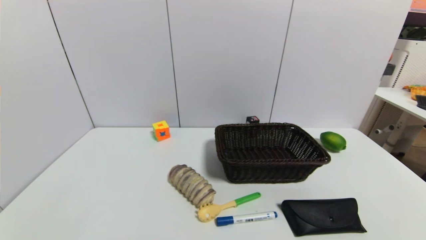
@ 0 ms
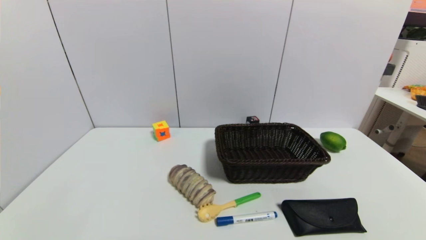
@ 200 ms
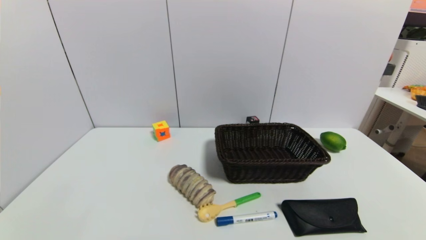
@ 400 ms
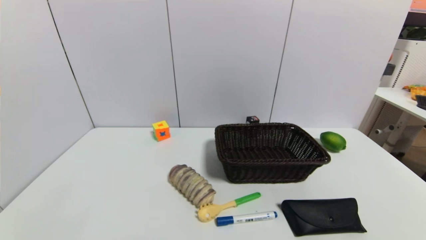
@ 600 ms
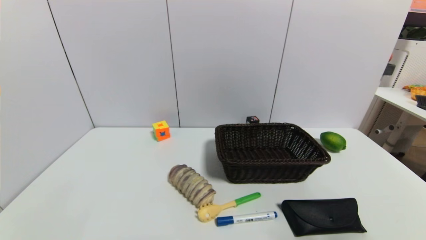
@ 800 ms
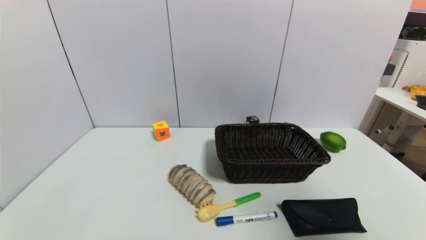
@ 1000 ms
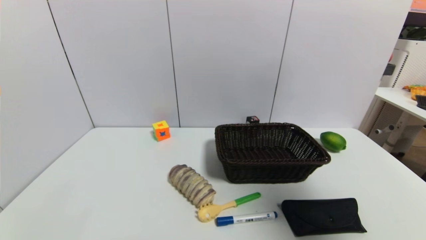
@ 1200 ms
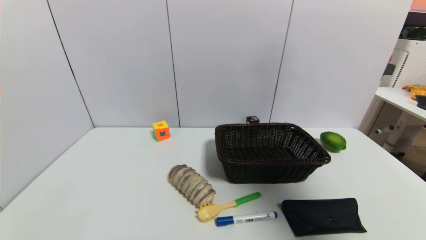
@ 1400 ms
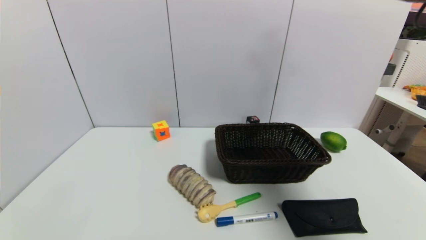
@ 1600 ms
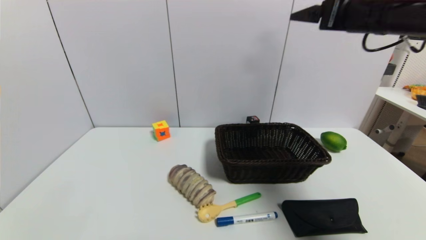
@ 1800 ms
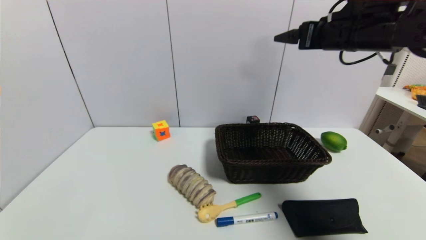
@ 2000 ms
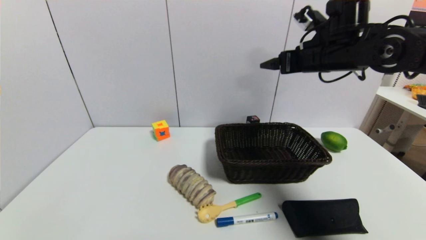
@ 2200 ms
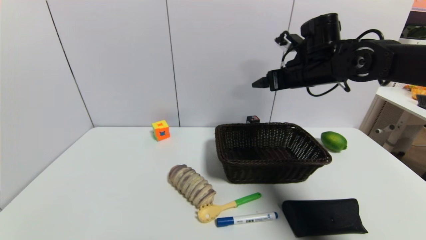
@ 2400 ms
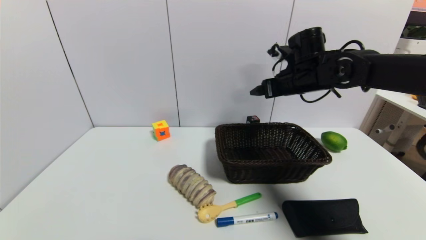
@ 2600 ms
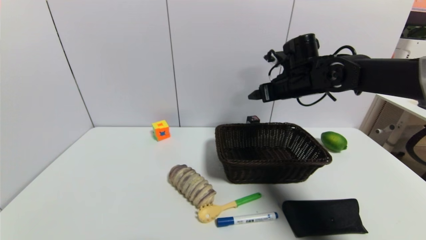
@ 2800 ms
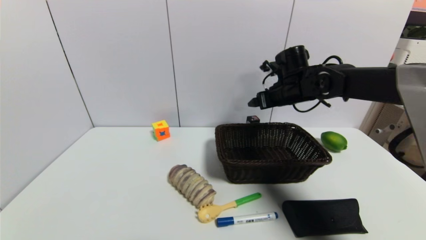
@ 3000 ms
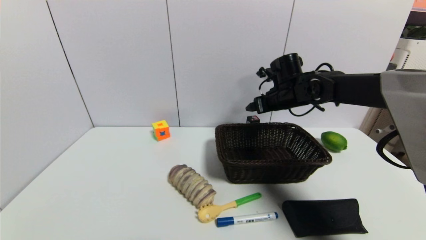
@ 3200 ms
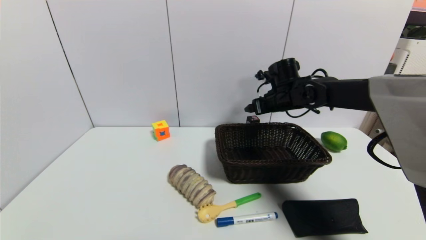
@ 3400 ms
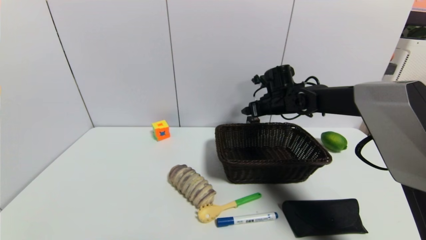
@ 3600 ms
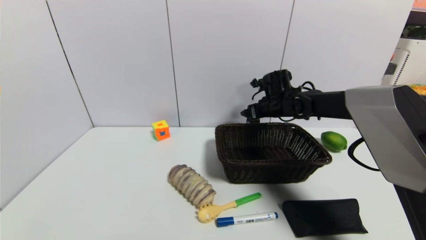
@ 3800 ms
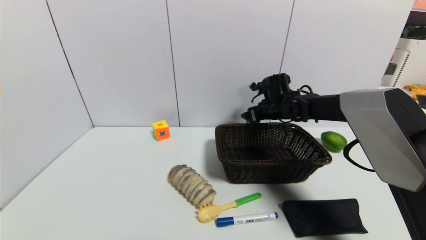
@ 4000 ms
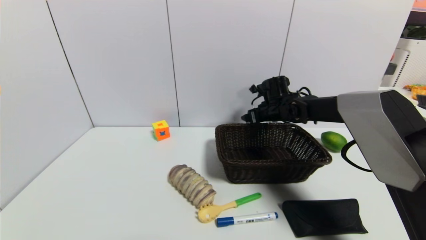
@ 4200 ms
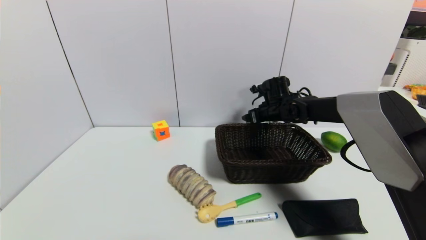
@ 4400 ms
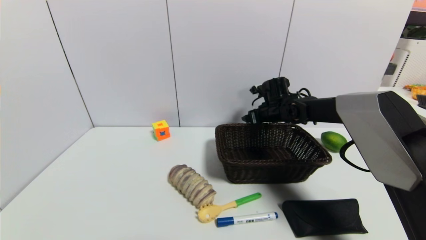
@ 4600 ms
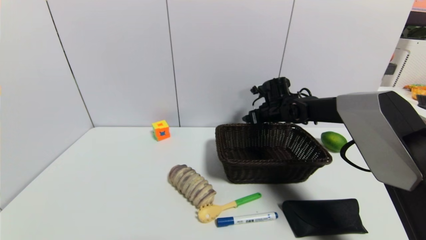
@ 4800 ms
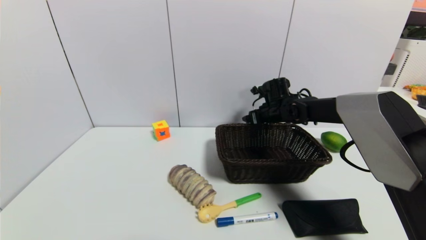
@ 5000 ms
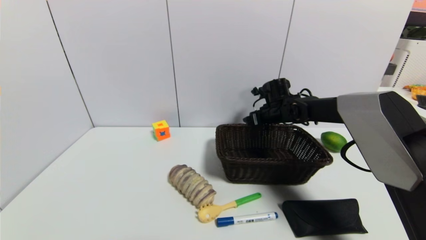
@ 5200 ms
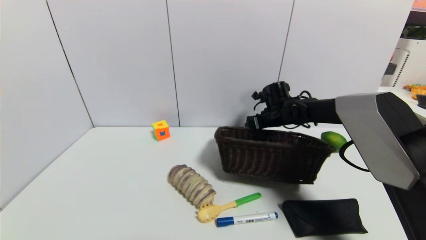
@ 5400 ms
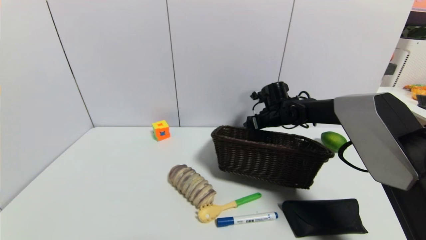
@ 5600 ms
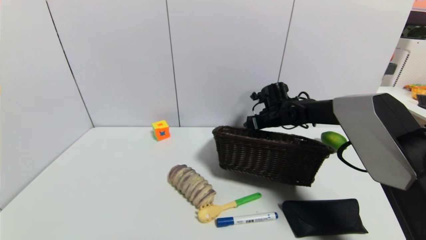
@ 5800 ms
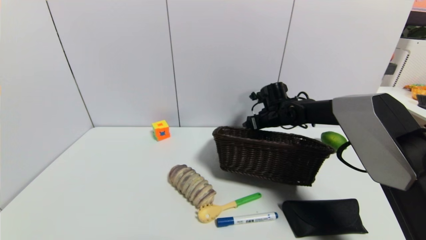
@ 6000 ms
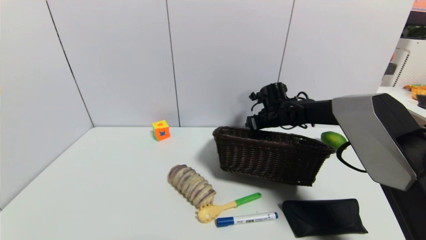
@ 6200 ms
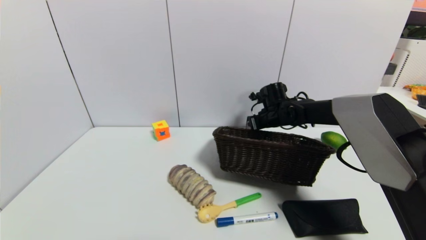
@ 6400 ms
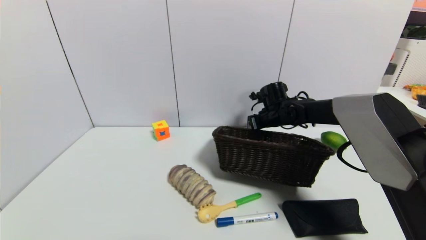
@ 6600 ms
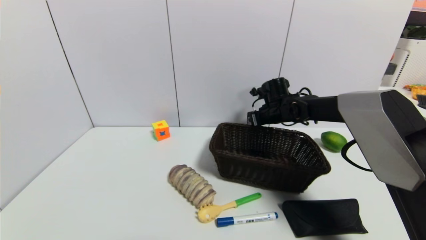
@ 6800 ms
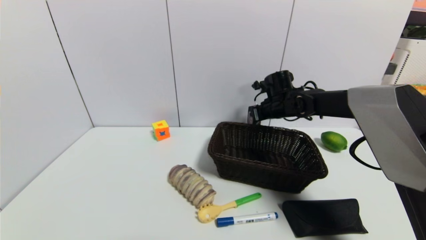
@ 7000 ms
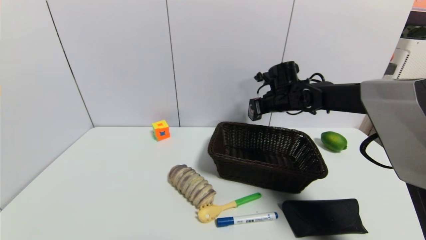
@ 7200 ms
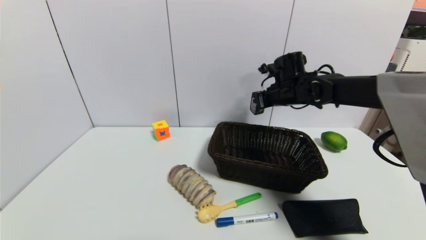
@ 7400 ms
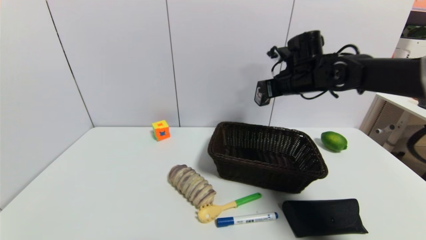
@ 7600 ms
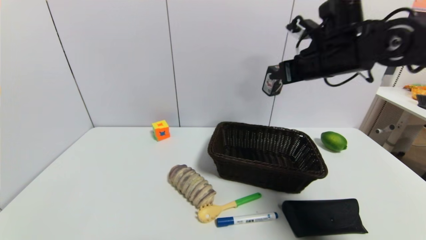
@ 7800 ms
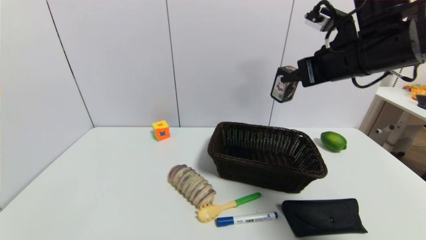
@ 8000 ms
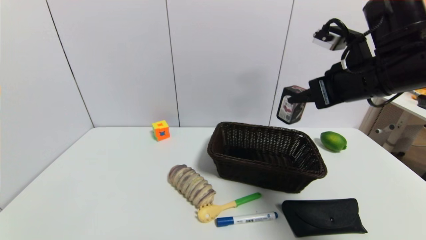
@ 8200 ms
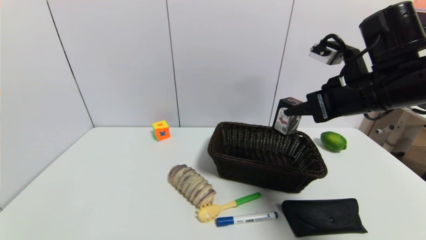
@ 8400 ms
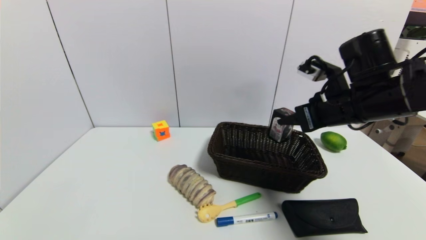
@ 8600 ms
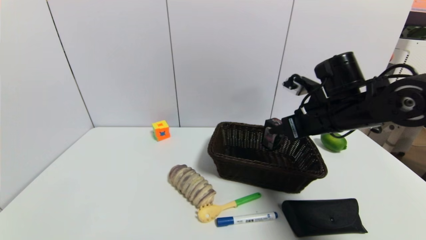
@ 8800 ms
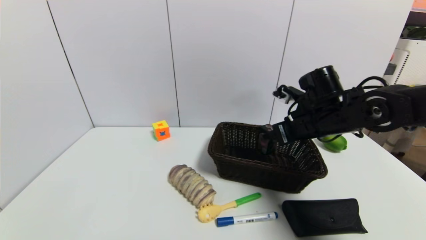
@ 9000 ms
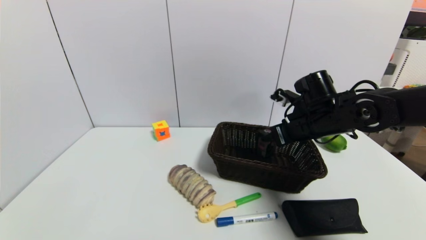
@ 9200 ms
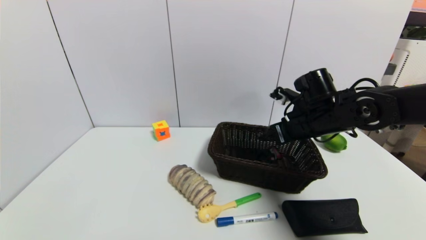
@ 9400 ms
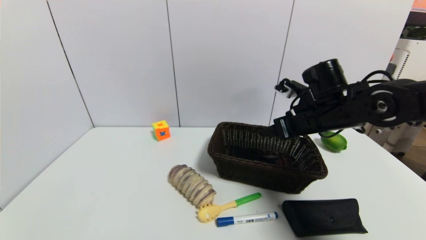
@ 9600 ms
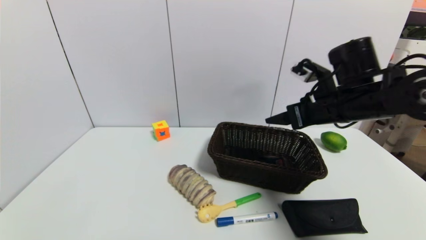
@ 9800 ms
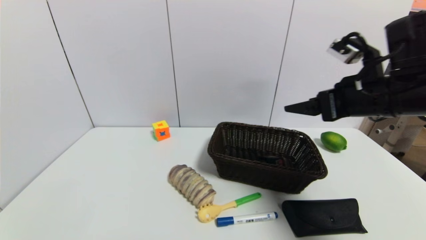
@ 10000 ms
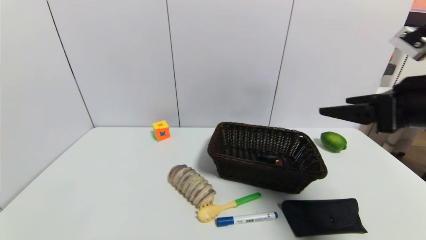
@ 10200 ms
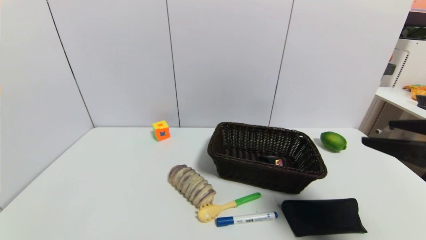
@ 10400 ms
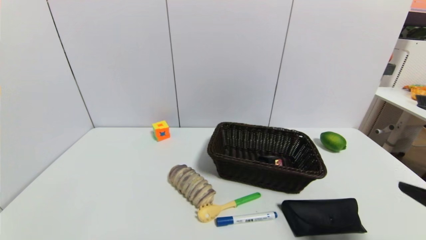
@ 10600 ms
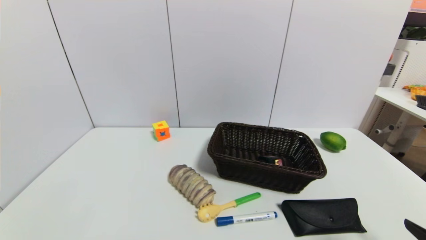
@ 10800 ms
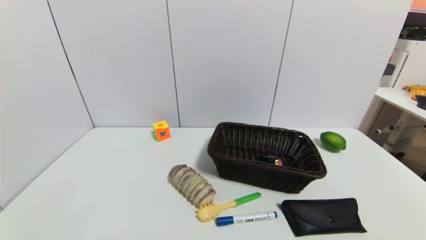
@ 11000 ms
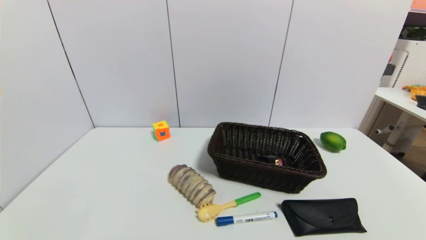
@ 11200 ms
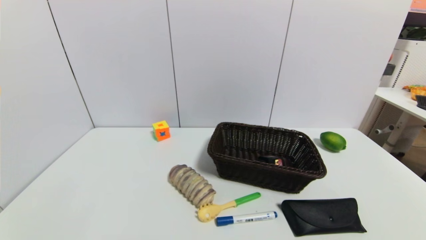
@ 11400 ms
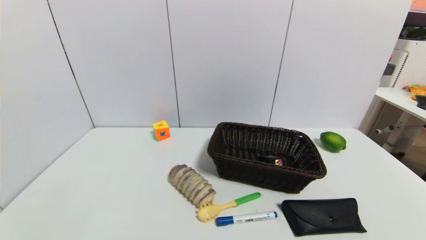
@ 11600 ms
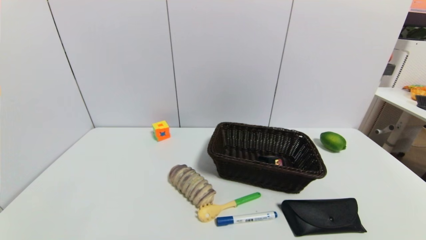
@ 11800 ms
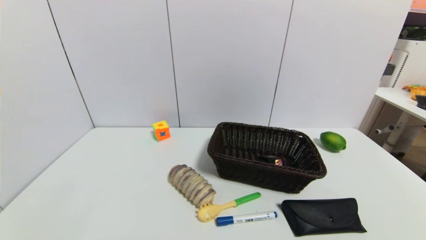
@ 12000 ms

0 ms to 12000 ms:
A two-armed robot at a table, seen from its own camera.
Task of the whole recording: use a gripper to pick the target object and place on the brown basket.
Step, 0 ms to 6600 ms: Grasp the square chewing gum with the right gripper.
Step, 6800 ms to 9800 ms: Place the square chewing gum into the basket with the right gripper.
0 ms to 1600 ms: The right gripper heads upward and forward, covering roughly 40 cm.
1600 ms to 3000 ms: The right gripper moves downward, forward and to the left, about 30 cm.
3000 ms to 4400 ms: The right gripper shifts roughly 10 cm downward and forward.
4400 ms to 6000 ms: The grippers stay close to where they were, moving slightly.
6000 ms to 7600 ms: The right gripper shifts some 15 cm upward and backward, and closes its fingers.
7600 ms to 9000 ms: The right gripper goes approximately 10 cm backward and downward.
9000 ms to 10400 ms: The right gripper heads backward and to the right, covering some 25 cm, and opens its fingers.
10400 ms to 12000 ms: The right gripper shifts roughly 25 cm downward and backward.

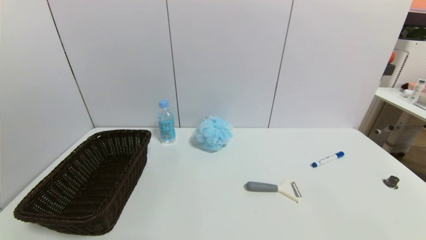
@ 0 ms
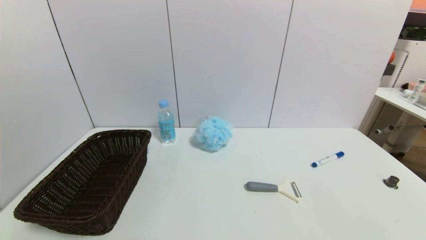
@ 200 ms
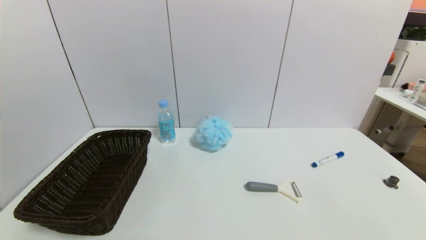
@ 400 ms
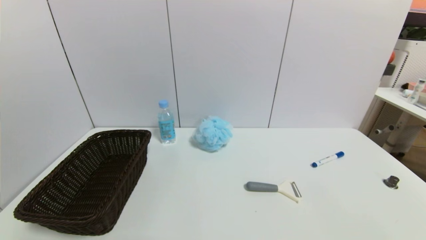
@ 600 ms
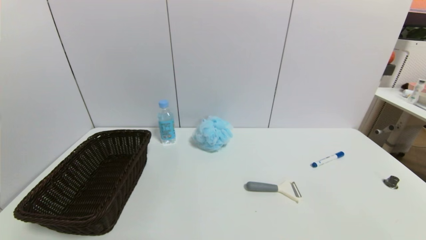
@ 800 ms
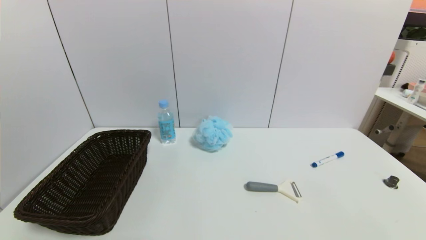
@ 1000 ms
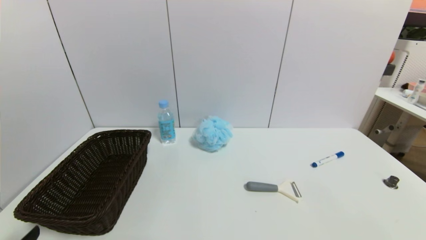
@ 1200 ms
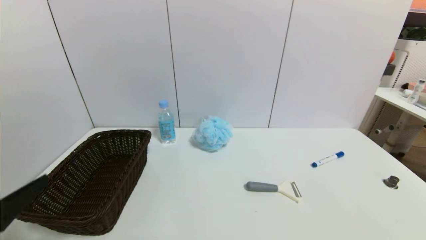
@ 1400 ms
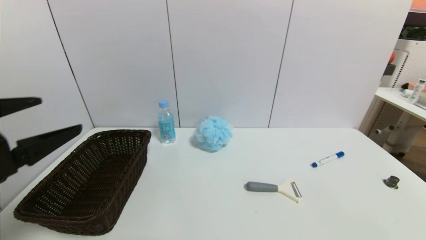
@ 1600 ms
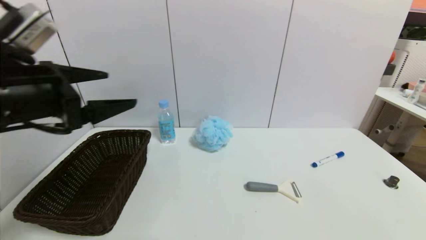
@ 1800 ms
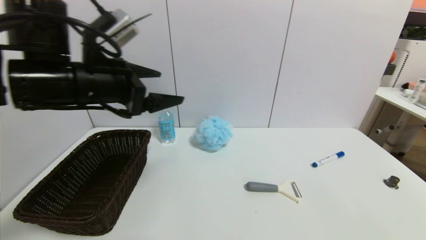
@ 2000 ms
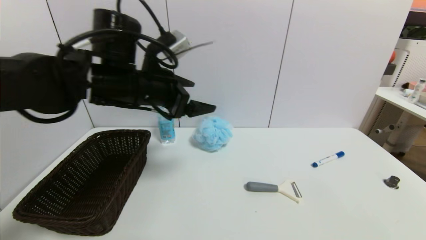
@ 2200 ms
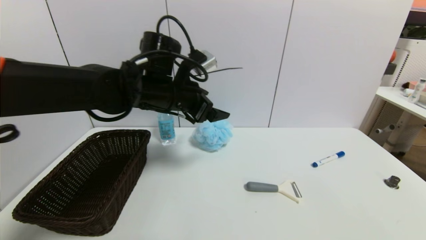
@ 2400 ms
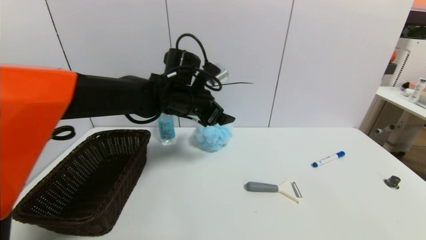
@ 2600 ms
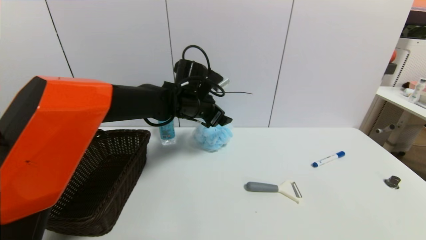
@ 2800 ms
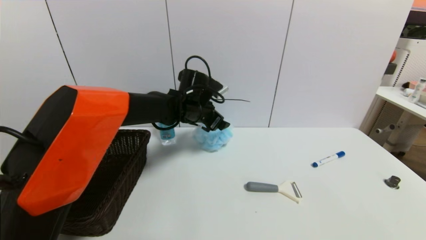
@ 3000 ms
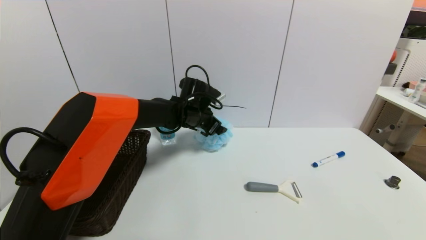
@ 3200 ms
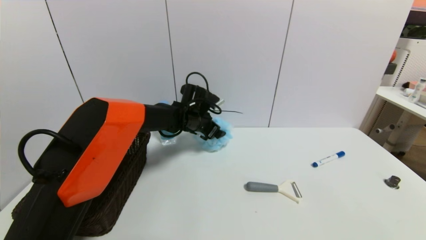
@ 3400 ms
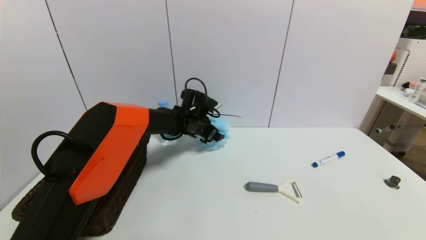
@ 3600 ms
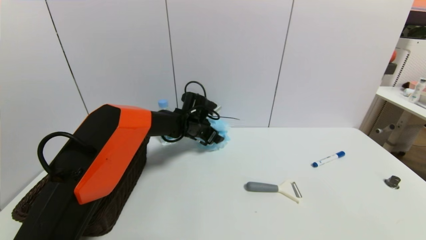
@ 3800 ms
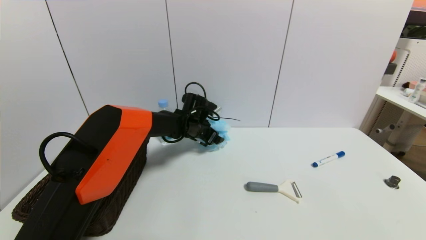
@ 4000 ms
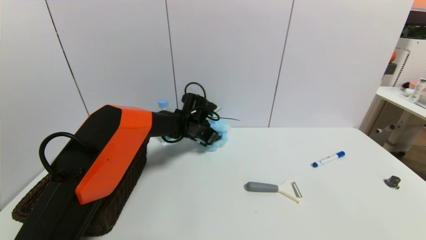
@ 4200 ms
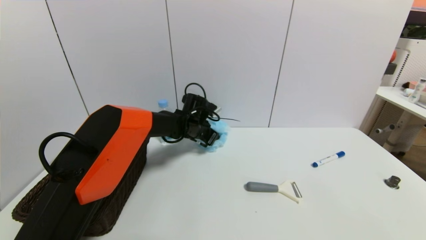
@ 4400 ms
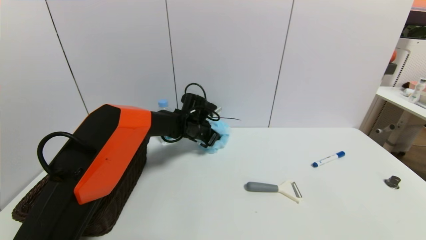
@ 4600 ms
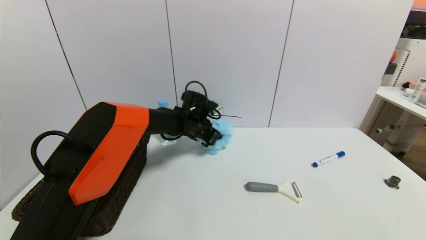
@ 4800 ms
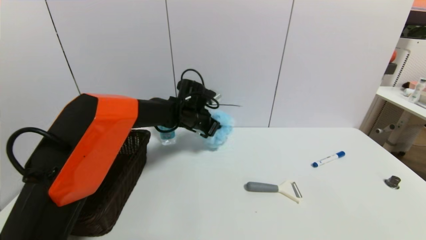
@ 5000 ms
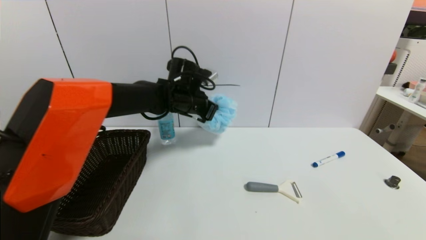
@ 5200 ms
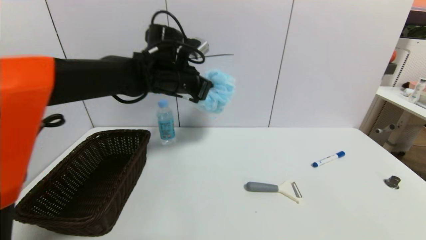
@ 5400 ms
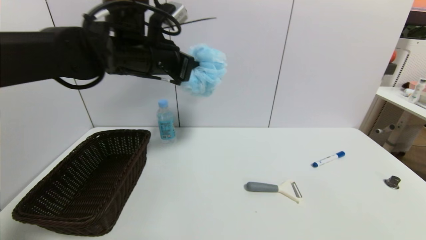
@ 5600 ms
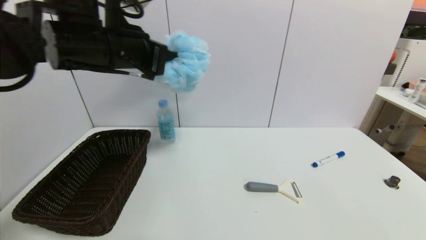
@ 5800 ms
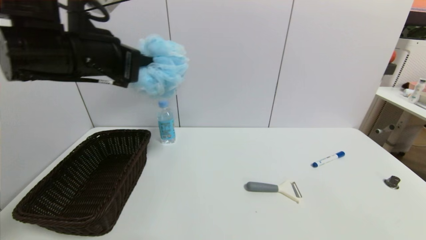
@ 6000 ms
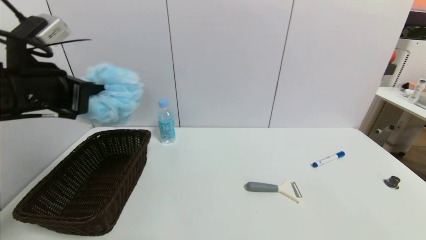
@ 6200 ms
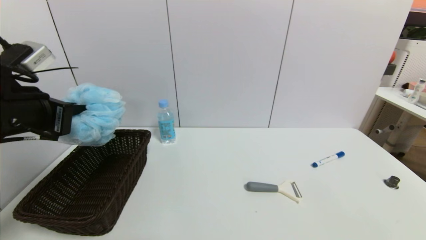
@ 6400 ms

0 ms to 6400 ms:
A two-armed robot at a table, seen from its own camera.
Task of the whole recording: use a gripper to pick the target object and place on the brown basket.
Step, 0 ms to 4400 ms: Grasp the shower sphere with the left gripper.
0 ms to 1600 ms: The left gripper is displaced upward and forward by approximately 25 cm.
1600 ms to 3200 ms: The left gripper moves forward and to the right, about 40 cm.
3200 ms to 4800 ms: The left gripper closes its fingers.
4800 ms to 6400 ms: The left gripper shifts approximately 35 cm backward, to the left and upward, and closes up.
